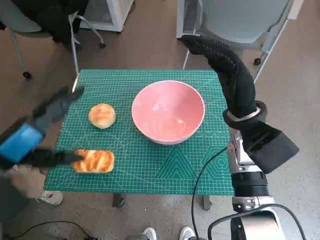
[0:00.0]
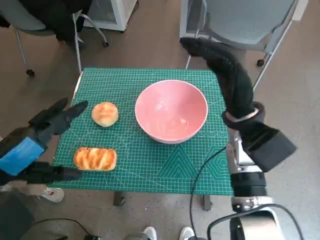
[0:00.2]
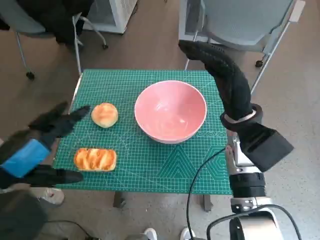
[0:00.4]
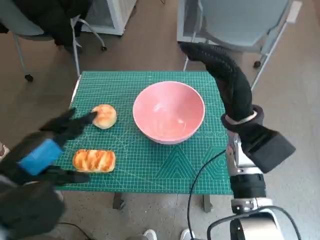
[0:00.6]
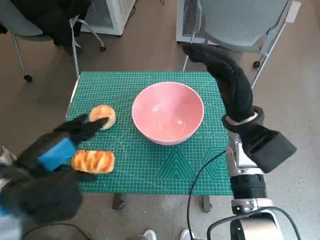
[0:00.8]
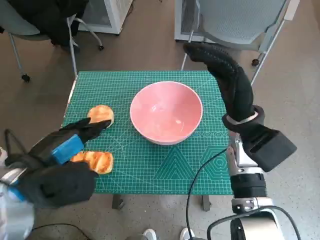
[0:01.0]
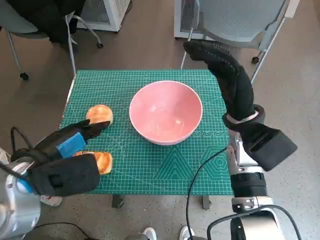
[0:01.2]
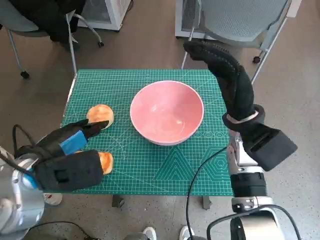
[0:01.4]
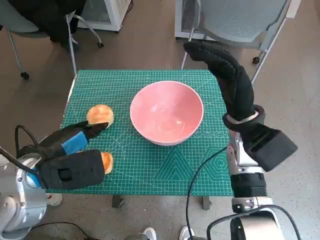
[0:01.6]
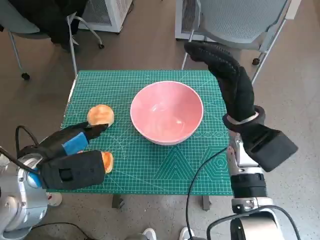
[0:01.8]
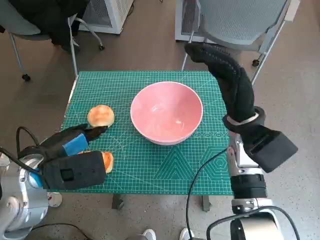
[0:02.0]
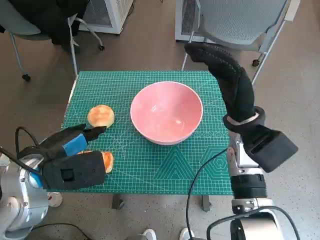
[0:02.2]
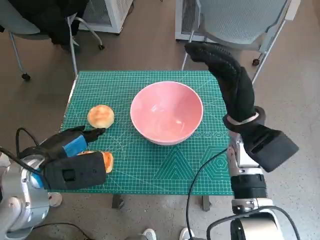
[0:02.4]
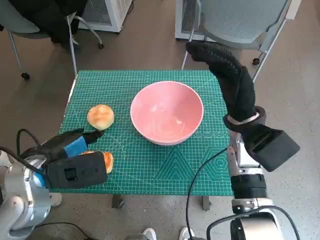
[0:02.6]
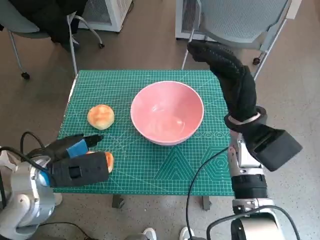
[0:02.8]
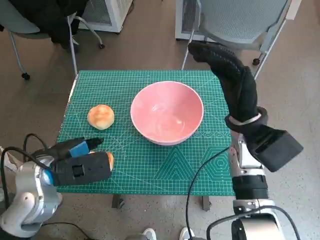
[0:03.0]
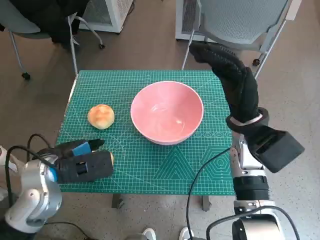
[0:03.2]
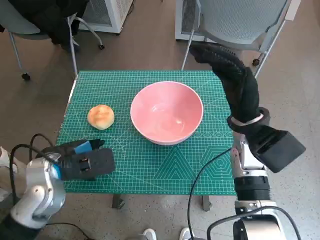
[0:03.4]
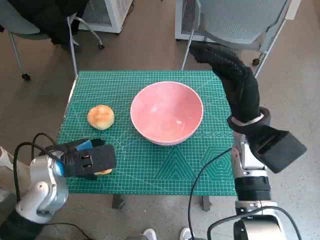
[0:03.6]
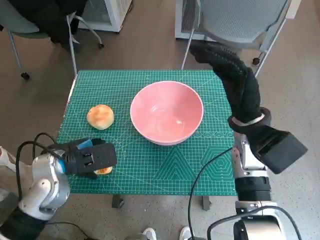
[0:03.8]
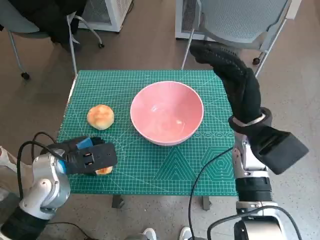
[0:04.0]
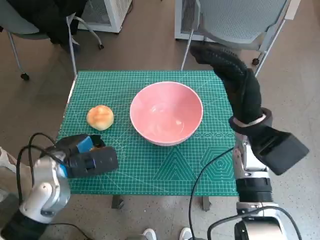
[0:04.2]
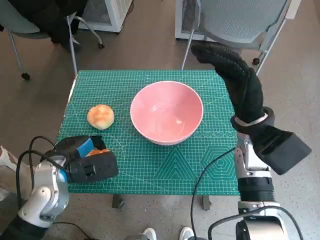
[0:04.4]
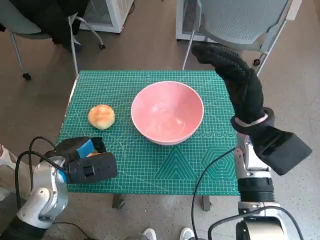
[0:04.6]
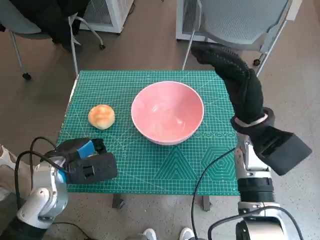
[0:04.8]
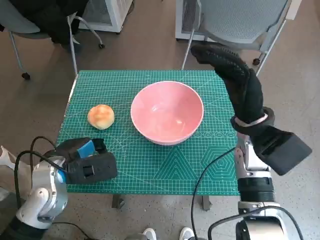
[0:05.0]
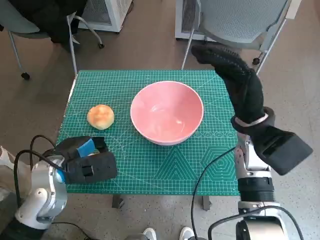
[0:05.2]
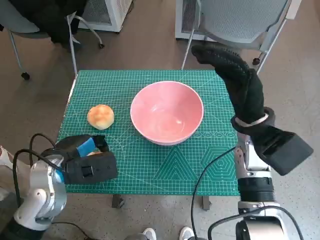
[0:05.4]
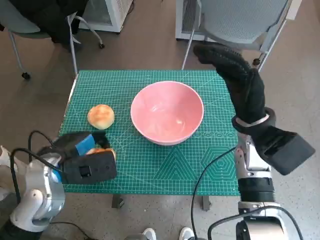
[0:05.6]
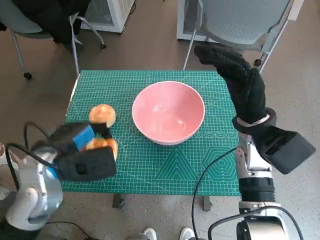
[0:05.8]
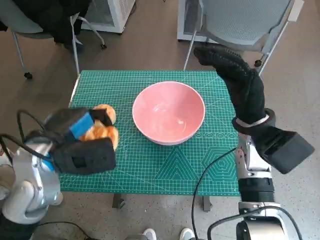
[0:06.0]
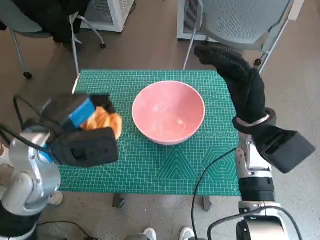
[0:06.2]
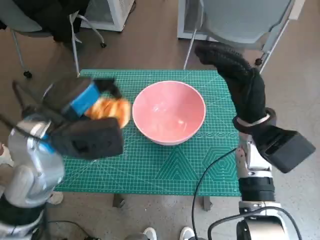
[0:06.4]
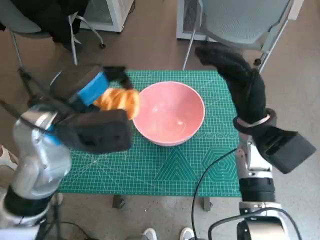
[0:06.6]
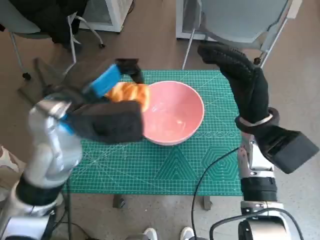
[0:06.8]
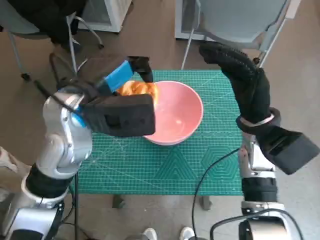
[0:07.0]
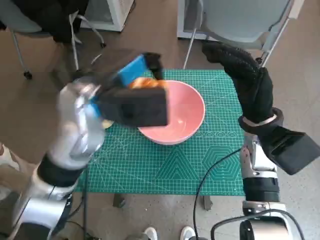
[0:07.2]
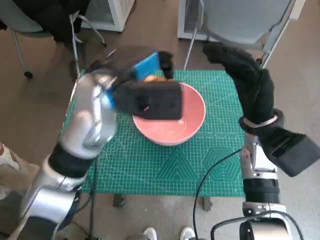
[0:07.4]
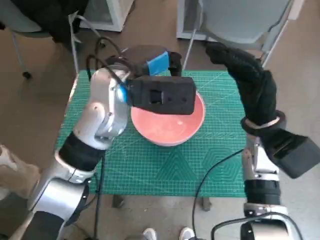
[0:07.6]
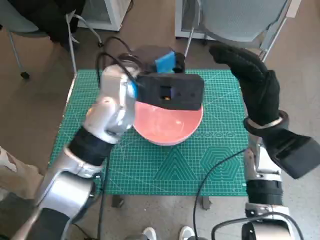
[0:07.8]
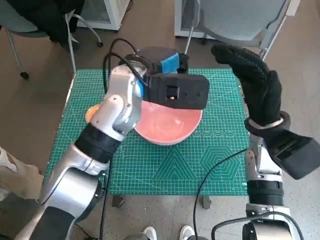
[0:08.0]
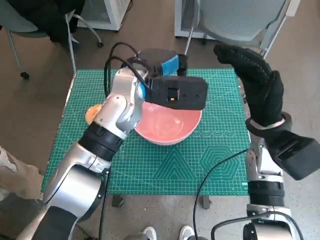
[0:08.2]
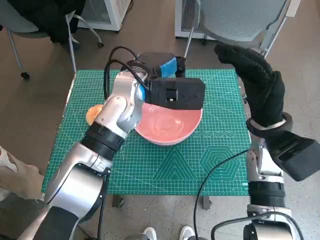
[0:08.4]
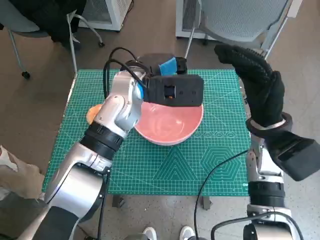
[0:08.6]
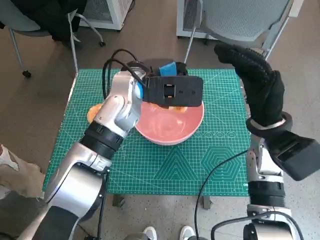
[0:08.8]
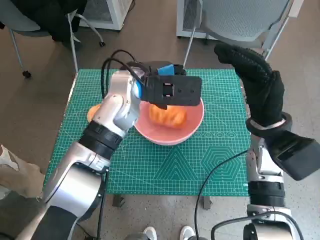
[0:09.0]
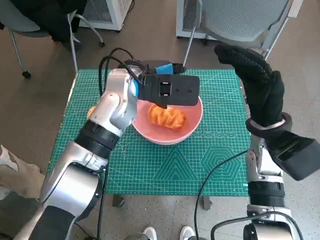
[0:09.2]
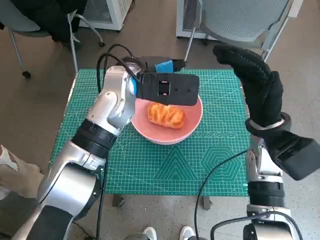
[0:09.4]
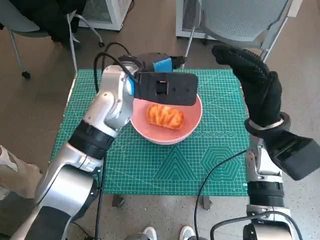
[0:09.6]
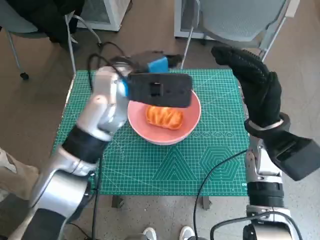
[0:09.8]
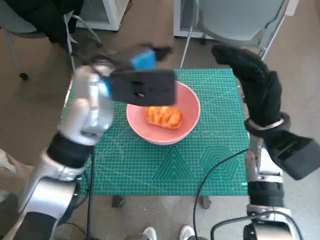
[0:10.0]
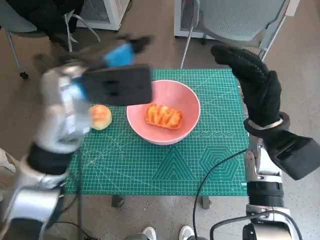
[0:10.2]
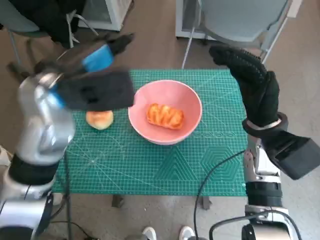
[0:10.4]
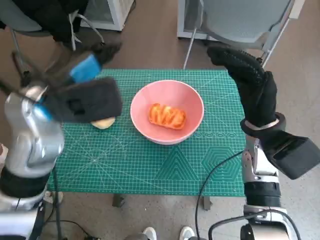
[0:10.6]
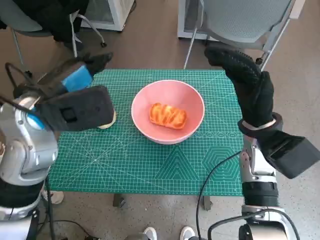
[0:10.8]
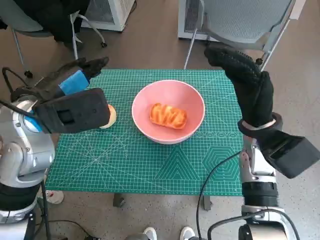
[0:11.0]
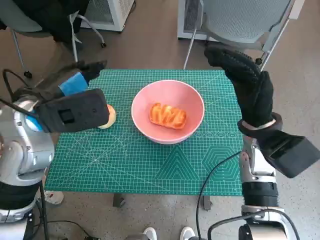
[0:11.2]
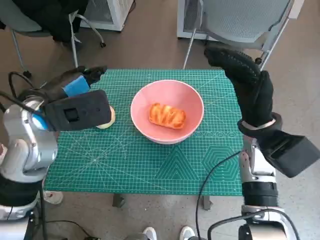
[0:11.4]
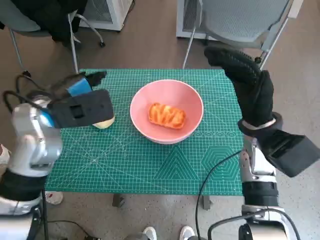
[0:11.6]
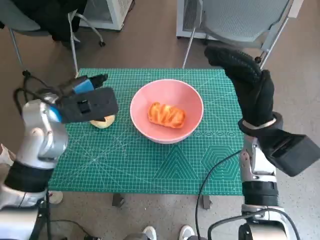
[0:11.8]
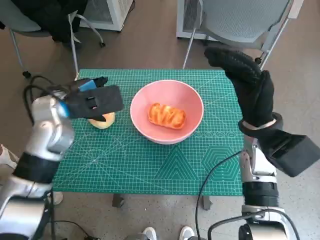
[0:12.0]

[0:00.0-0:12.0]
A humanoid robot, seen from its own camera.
Step, 0:00.0 to 0:04.2: Grasp the long bread with left hand.
Step, 0:04.4 to 0:09.2: Place the long bread in pink bowl with left hand.
0:00.0 to 0:01.6: The left hand changes place by approximately 5 cm.
0:01.6 to 0:03.0: There are only small adjustments of the hands.
0:03.0 to 0:04.4: The hands stay close to where they were, moving slightly.
0:04.4 to 0:06.0: The left hand is displaced upward by some 5 cm.
0:06.0 to 0:07.6: The left hand heads to the right, forward and upward, covering some 15 cm.
0:07.6 to 0:09.0: The left hand shifts by about 5 cm.
0:09.0 to 0:10.4: The left hand moves to the left, backward and upward, roughly 10 cm.
0:10.4 to 0:12.0: The left hand is displaced downward by roughly 10 cm.

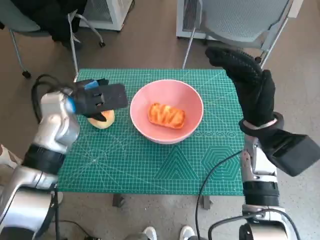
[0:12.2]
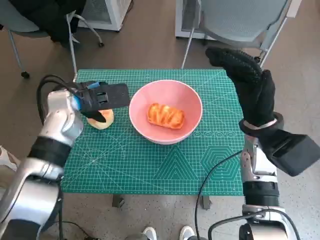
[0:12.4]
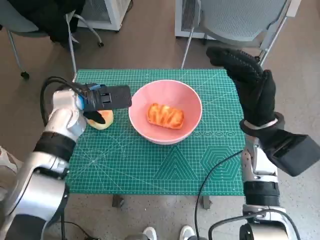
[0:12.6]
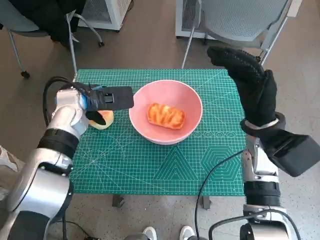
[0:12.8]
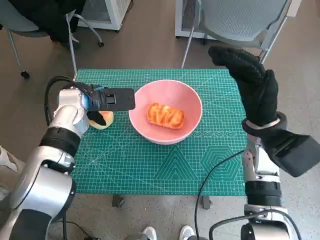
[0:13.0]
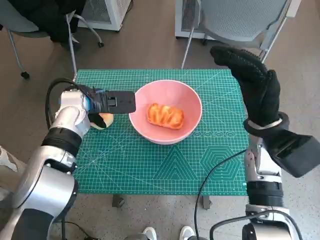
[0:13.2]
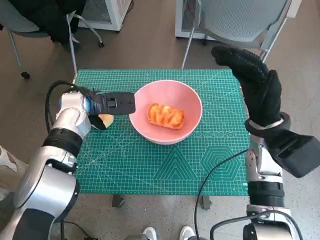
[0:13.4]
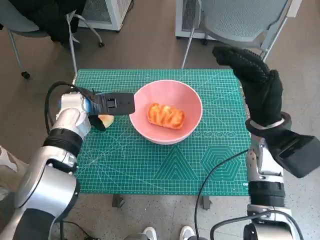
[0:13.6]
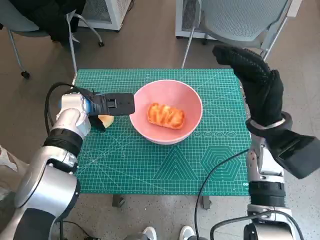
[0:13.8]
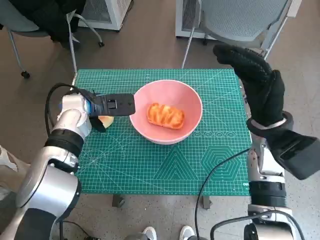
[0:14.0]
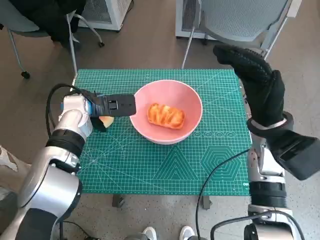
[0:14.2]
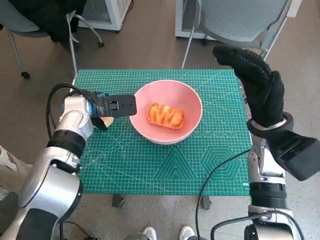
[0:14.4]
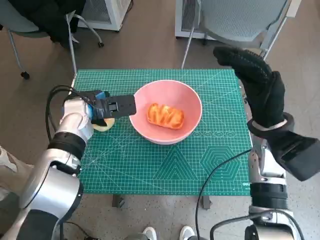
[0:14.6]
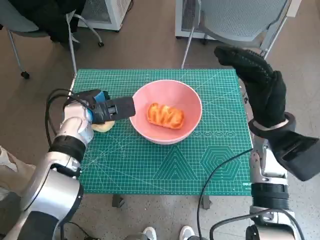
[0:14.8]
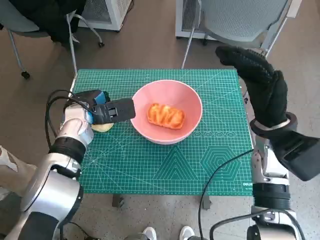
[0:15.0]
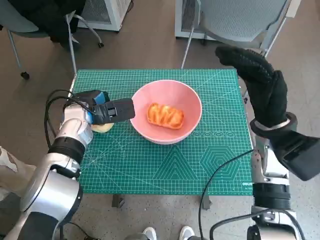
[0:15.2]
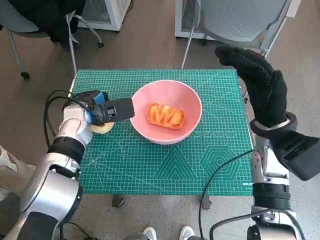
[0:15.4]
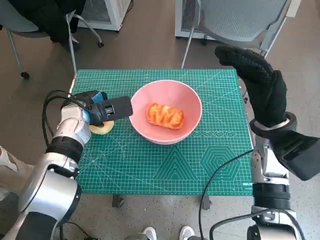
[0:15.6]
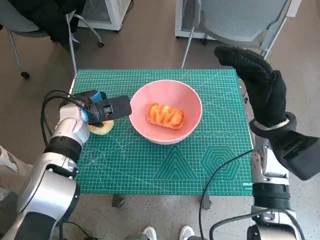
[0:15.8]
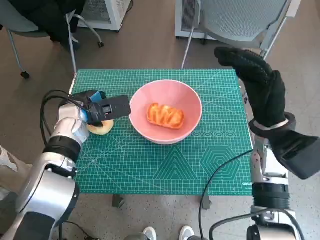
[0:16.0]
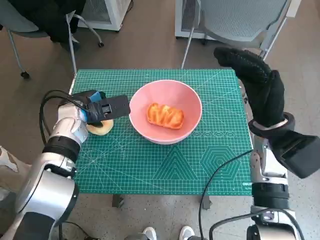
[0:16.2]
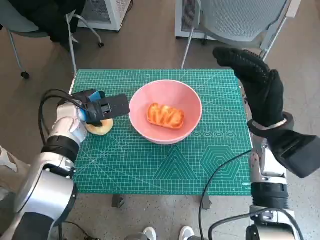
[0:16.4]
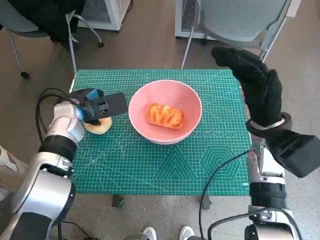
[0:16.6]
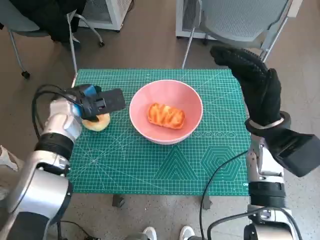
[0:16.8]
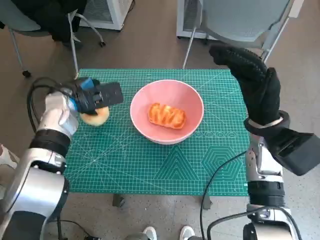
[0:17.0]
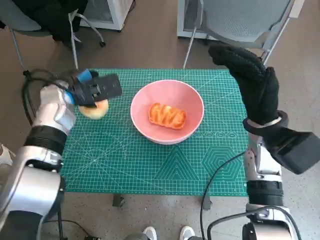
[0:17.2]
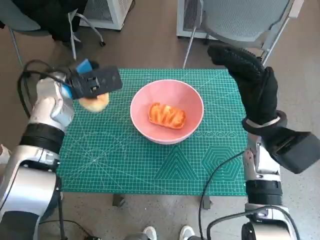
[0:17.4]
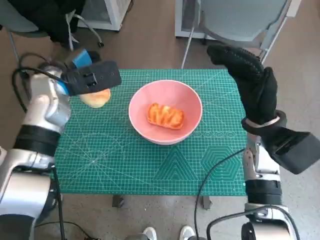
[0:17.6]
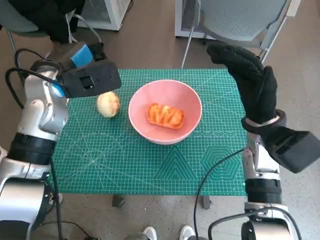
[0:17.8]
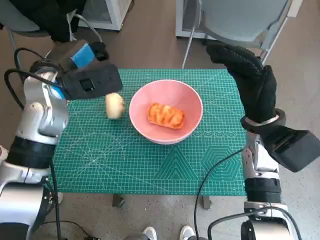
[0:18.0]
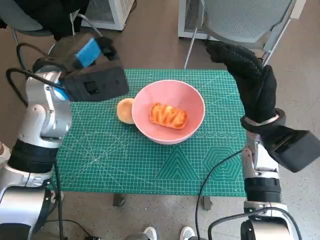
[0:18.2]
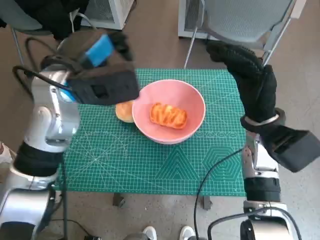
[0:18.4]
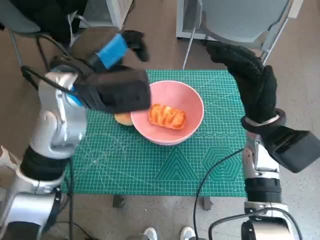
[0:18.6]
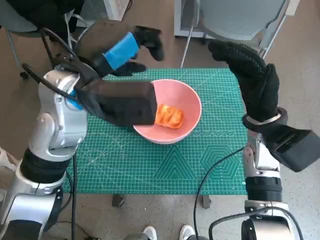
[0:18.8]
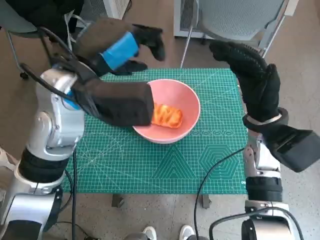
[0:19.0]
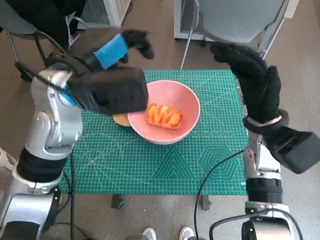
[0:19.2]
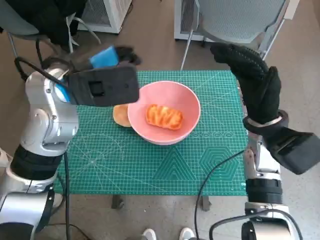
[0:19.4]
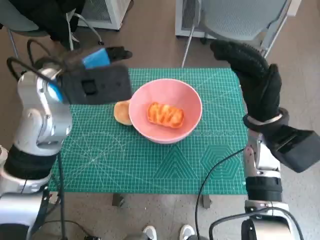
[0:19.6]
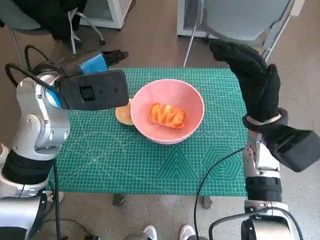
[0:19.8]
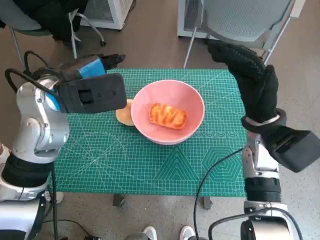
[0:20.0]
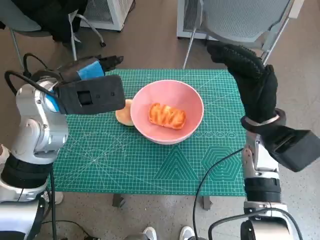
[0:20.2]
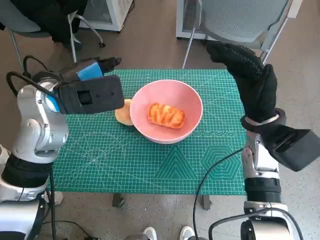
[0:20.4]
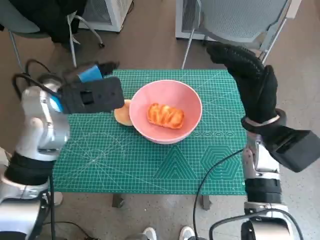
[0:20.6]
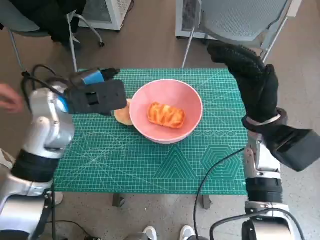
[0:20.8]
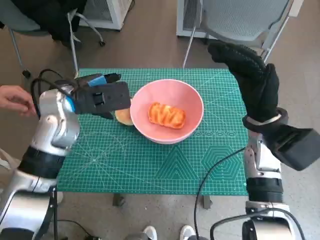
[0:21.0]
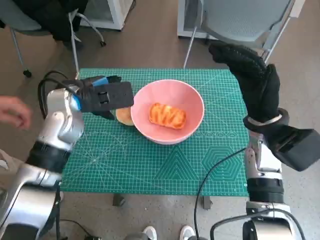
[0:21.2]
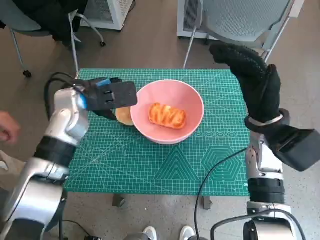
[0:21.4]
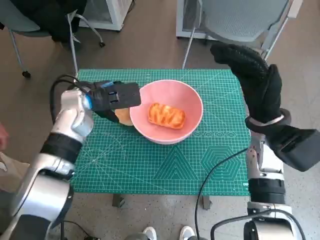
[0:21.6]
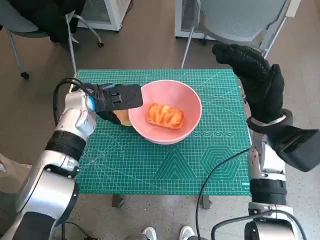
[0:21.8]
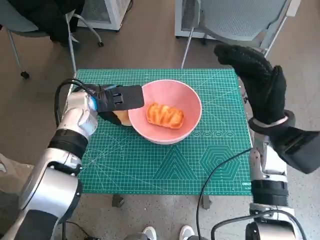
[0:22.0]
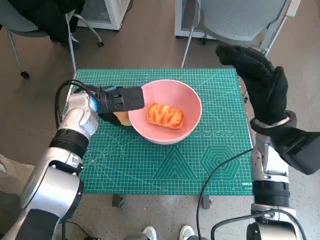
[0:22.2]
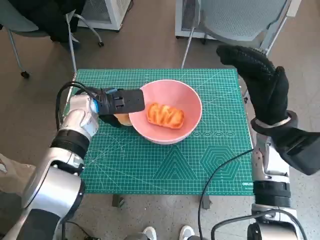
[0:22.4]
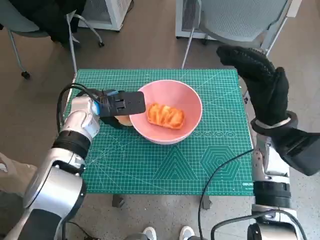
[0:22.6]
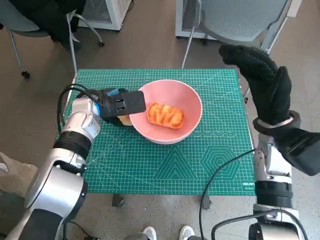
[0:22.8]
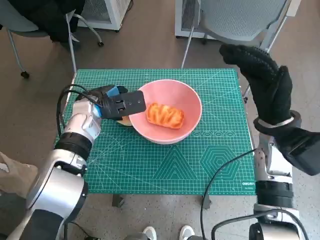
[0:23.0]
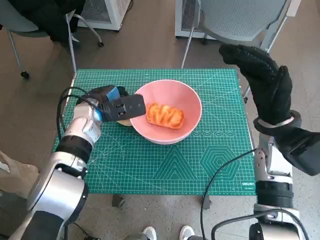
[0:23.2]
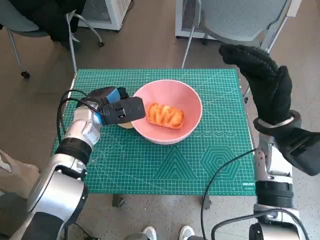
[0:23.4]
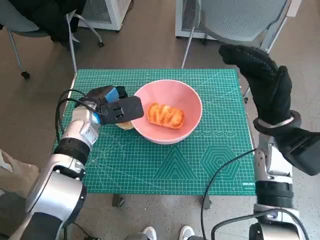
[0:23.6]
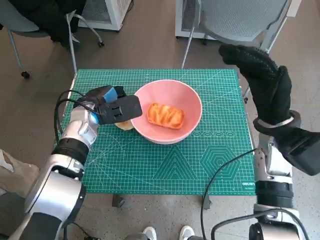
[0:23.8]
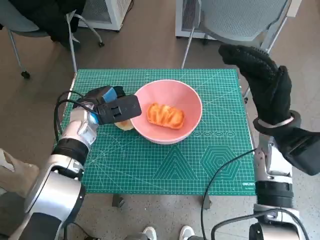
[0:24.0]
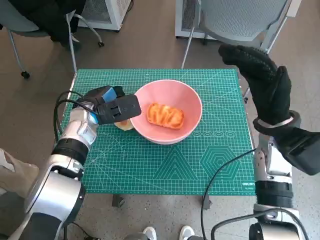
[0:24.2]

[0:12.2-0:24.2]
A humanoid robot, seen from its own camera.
0:13.8 to 0:16.6: The hands make only small movements.
0:16.6 to 0:18.2: The left hand shifts roughly 10 cm upward.
0:19.8 to 0:21.2: The left hand goes some 5 cm downward.
0:21.2 to 0:22.6: The left hand goes about 5 cm downward.
0:22.6 to 0:24.2: There are only small adjustments of the hands.
